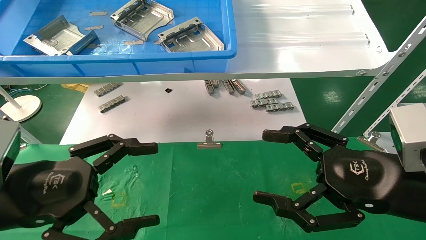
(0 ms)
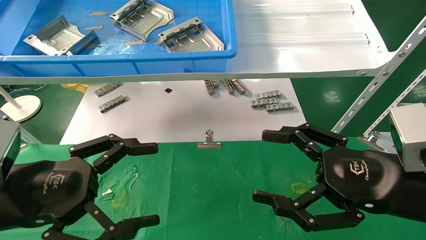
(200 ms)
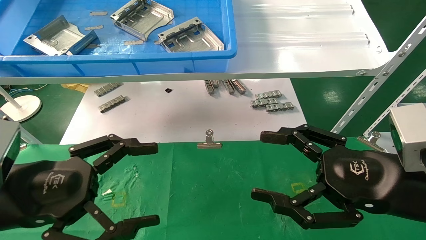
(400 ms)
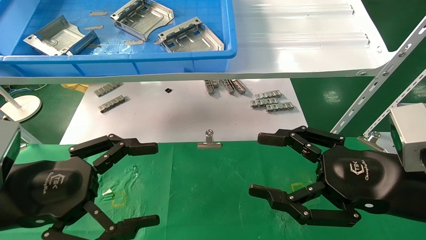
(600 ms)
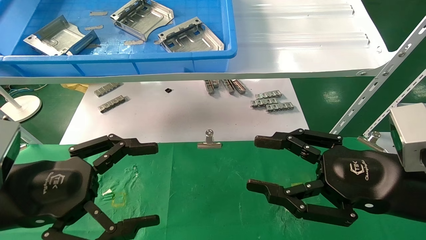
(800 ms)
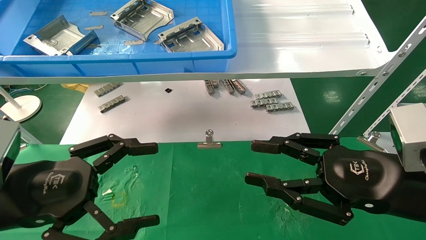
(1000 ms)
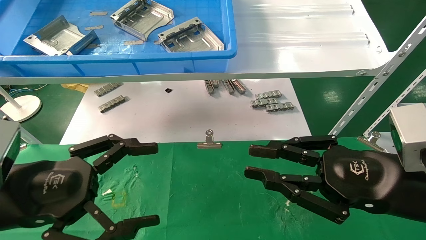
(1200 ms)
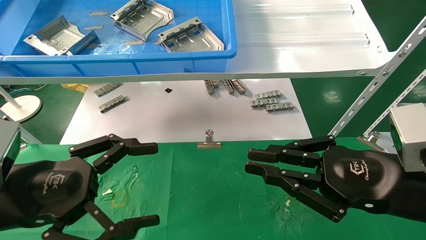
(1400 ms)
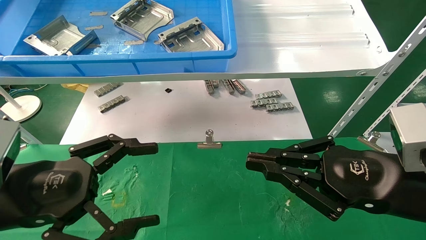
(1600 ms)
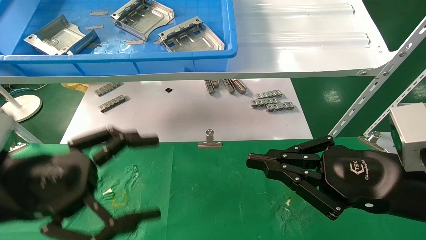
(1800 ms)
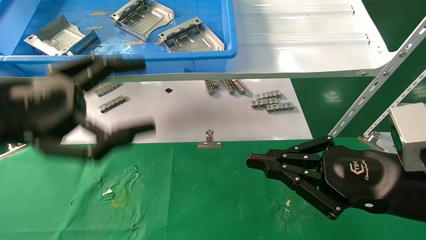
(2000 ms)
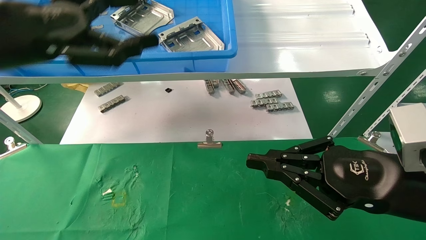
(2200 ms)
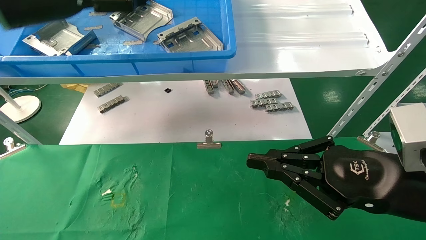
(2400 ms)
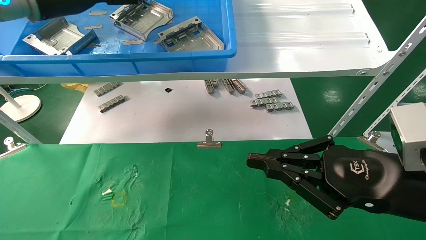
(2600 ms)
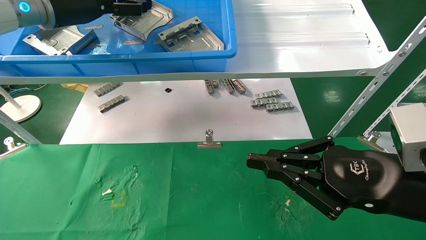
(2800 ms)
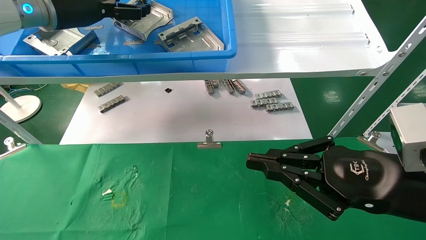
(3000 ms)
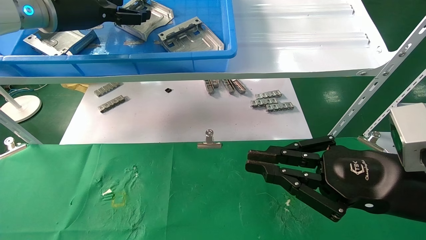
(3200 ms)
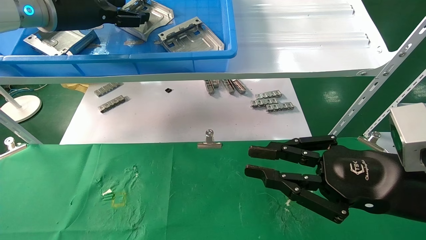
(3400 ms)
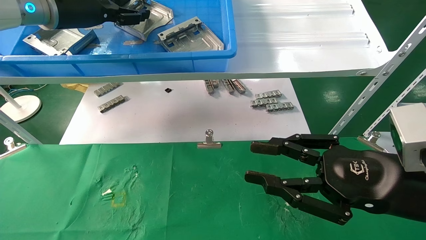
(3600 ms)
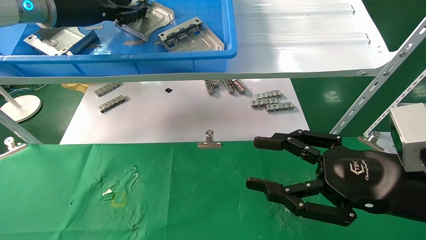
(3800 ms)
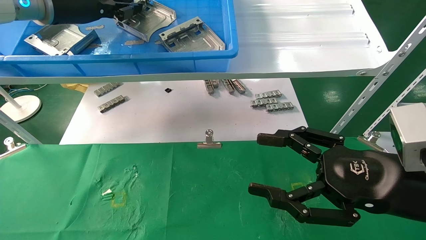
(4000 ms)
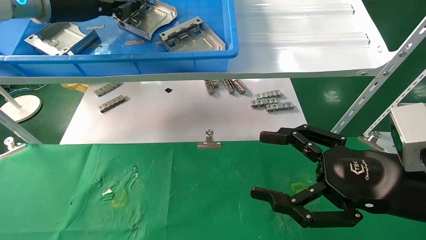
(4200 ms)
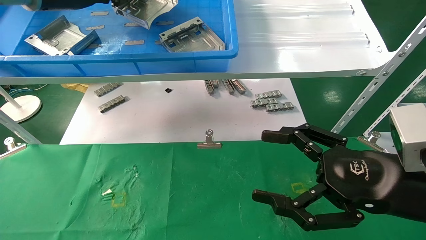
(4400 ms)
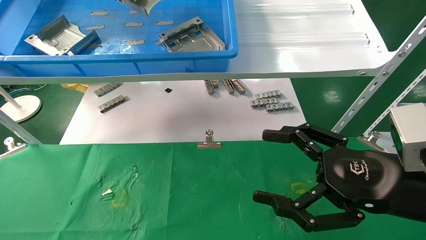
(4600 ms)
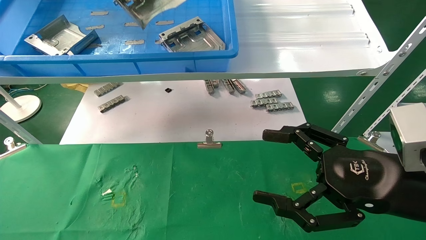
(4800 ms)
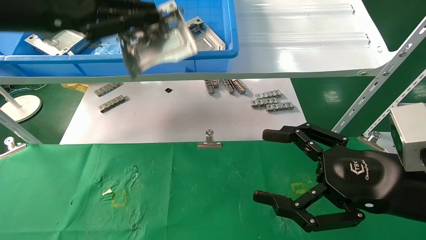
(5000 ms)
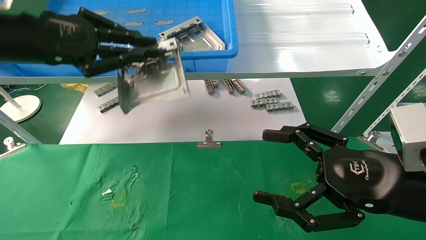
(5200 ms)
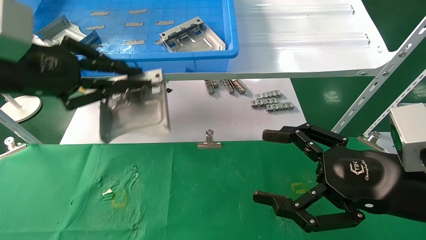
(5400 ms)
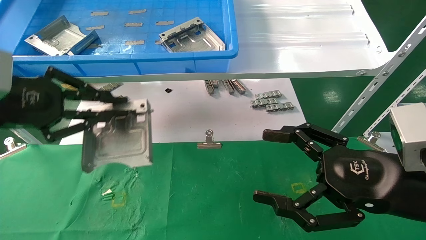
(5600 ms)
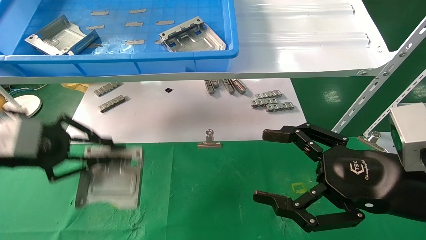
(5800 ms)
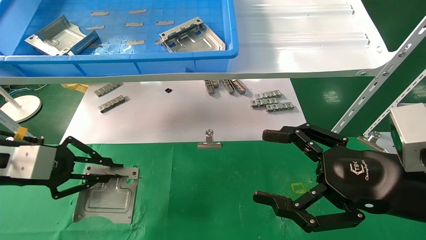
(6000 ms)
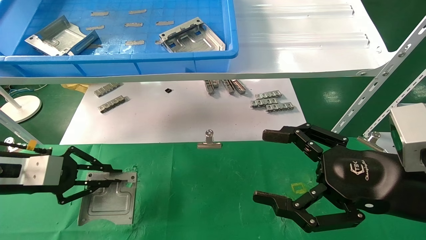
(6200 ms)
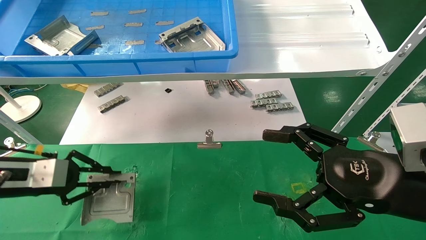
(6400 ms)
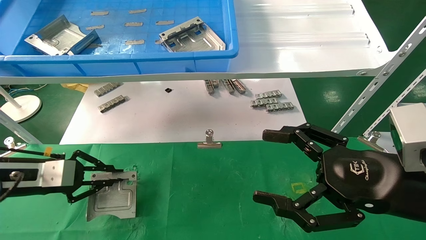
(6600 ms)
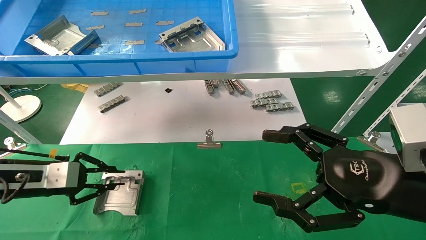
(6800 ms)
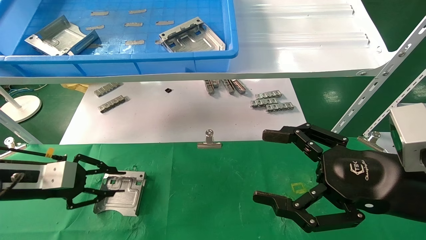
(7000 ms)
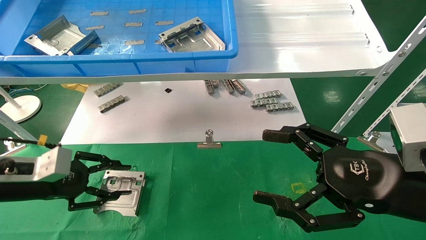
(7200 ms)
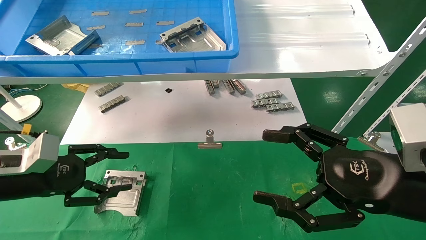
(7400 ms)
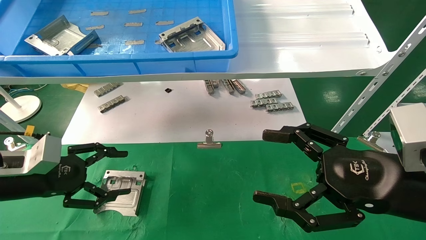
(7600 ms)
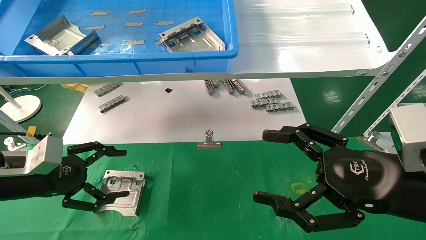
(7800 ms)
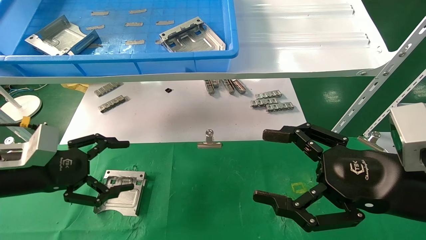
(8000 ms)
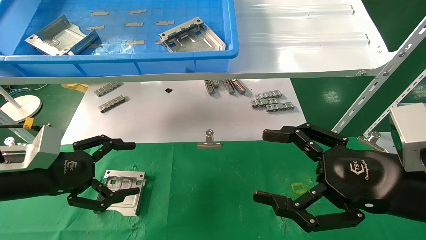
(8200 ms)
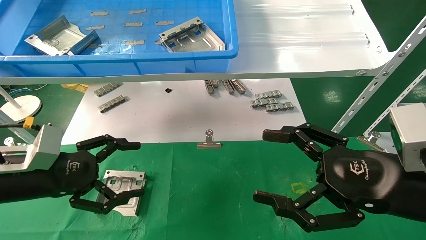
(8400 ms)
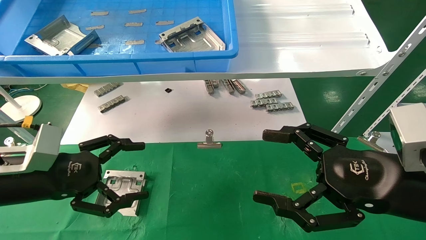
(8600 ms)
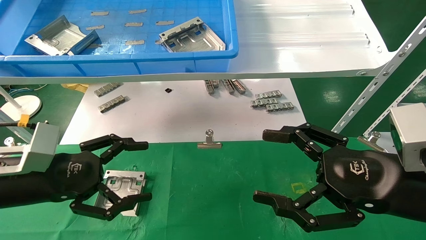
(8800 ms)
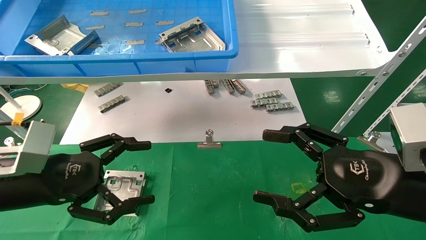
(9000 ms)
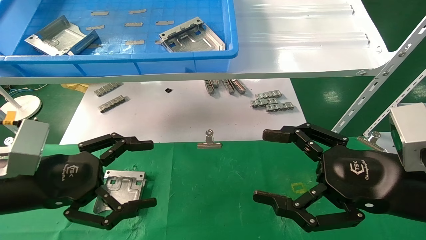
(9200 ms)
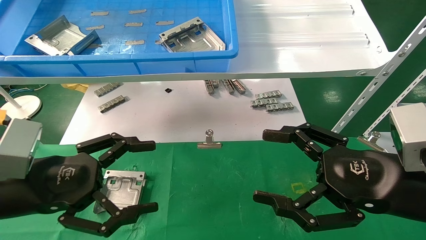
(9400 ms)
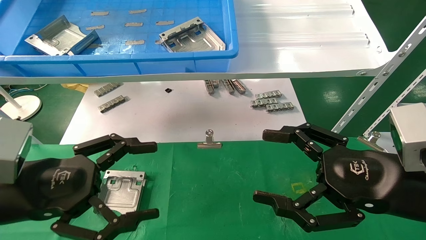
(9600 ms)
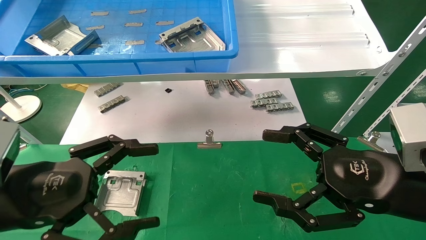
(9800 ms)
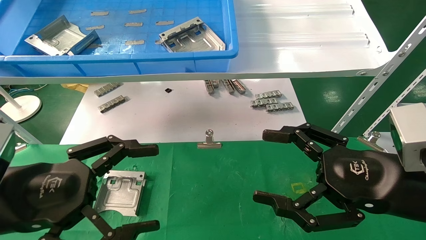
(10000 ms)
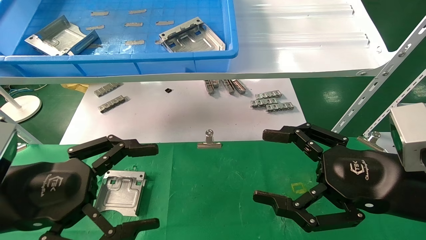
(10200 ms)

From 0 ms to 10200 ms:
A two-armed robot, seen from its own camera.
Task of the whole recording: use the mechanical arm to pick up the parts and place them on the table.
Step, from 2000 ms to 4000 ms: Pick up the hard drive bracket from the feeding area.
Step, from 4200 ms to 7200 ms: Place the hard drive bracket into the box.
From 0 ms to 1400 ms: The right gripper closes.
From 1400 ms to 3000 ms: The left gripper heads forward and upward, covering about 30 cm.
From 3000 ms to 4400 ms: The right gripper opens up; the left gripper closes up.
From 4400 ms to 5800 ms: The left gripper shifts roughly 25 cm downward and backward.
From 5800 ms to 7200 ms: The left gripper heads downward, covering some 10 cm.
From 7200 ms to 8800 ms: The left gripper goes some 5 cm to the right, and opens its fingers.
From 8800 ms to 10200 ms: The left gripper travels backward by about 5 cm.
